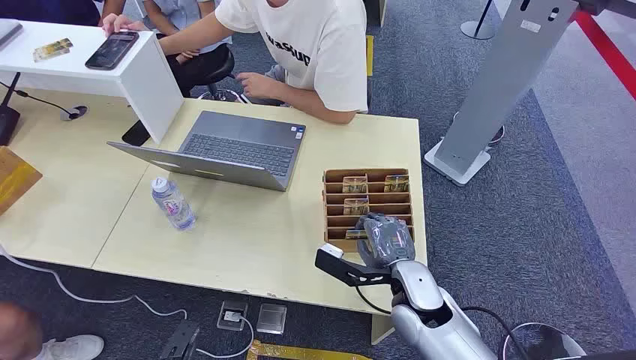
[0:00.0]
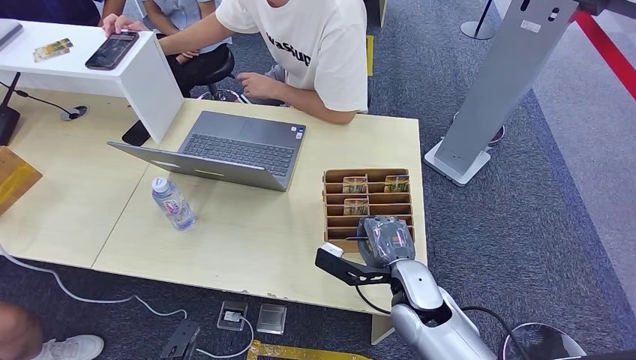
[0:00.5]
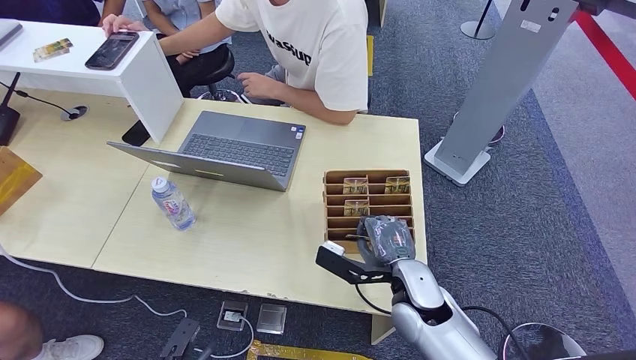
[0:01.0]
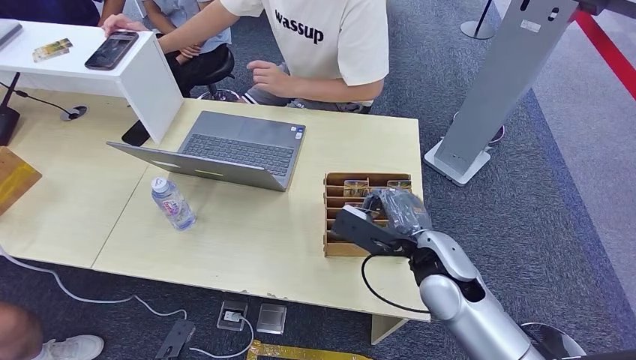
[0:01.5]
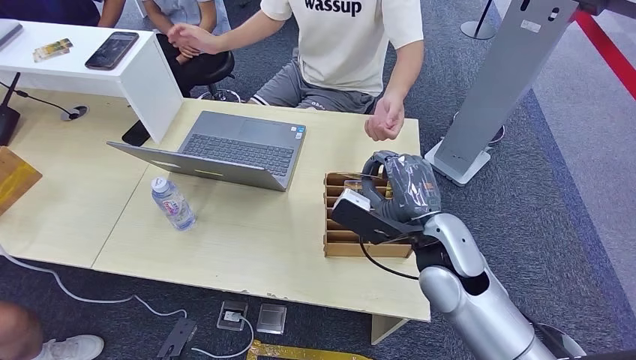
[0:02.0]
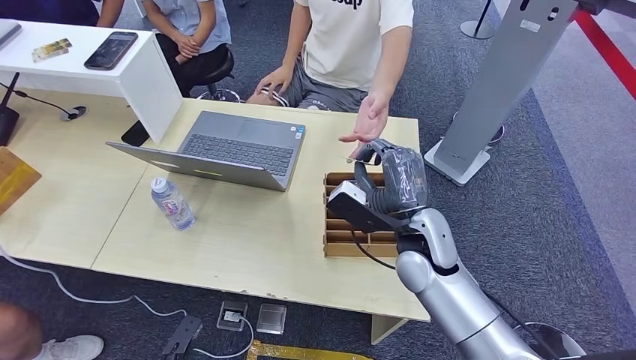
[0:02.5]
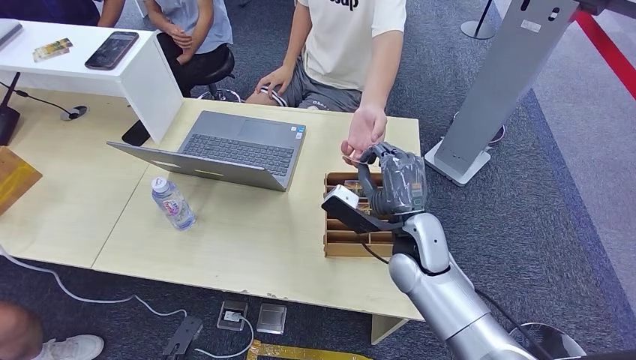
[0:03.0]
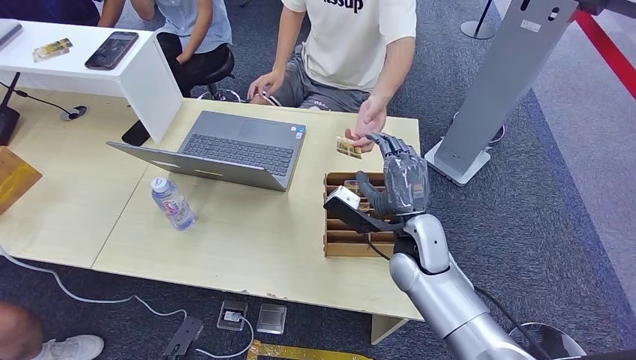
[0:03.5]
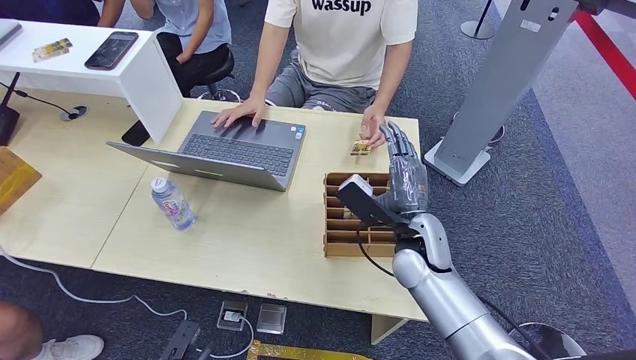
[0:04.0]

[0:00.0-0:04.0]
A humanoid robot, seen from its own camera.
Step, 0:00.0 to 0:01.5: Pick up the room card from the card holder.
Step, 0:02.0 to 0:04.0: Hand the room card to the target.
0:02.0 to 0:04.0: The right hand travels downward by approximately 5 cm.

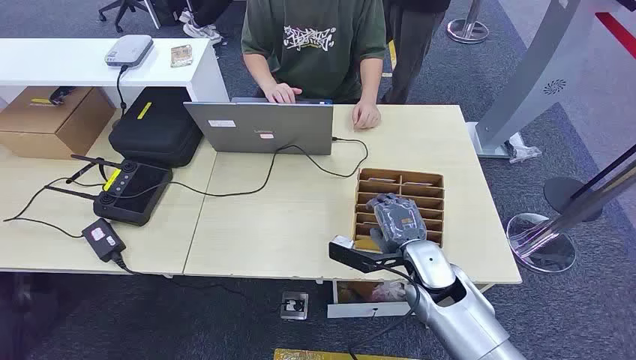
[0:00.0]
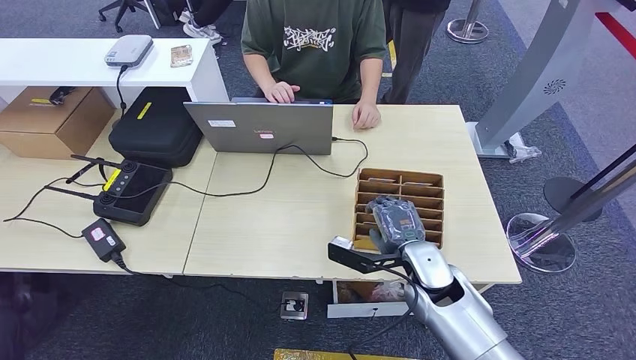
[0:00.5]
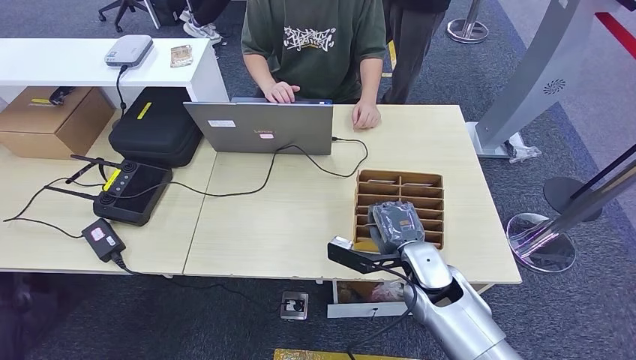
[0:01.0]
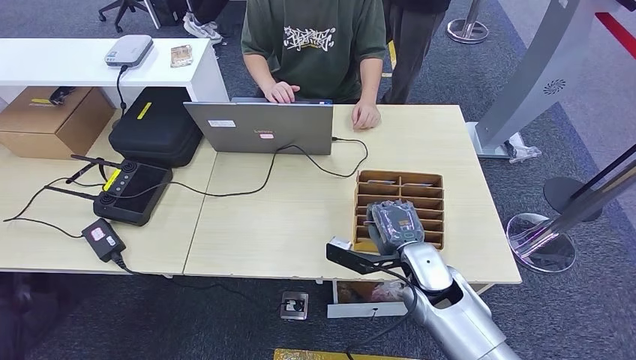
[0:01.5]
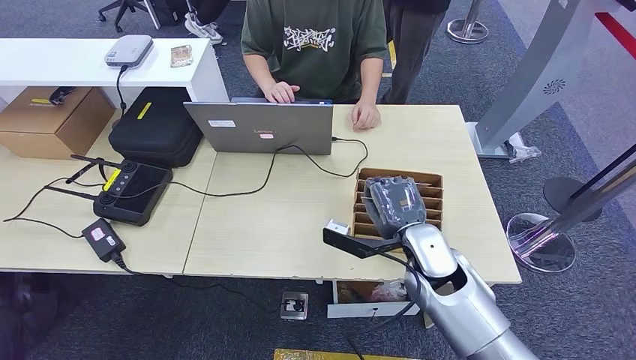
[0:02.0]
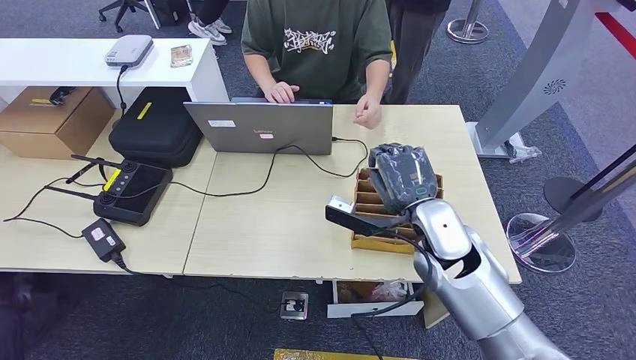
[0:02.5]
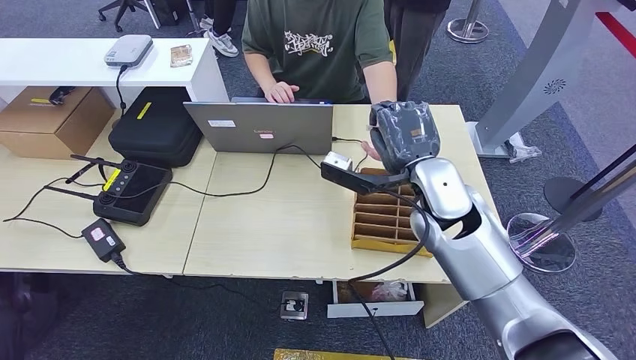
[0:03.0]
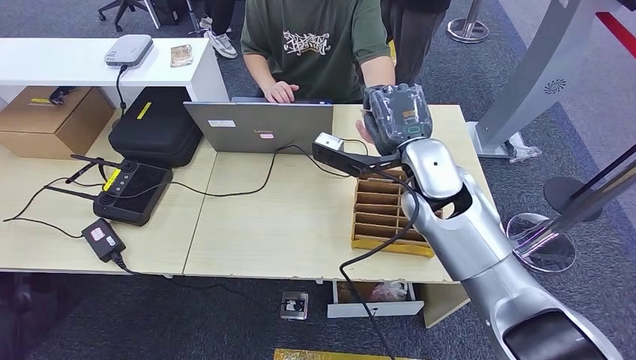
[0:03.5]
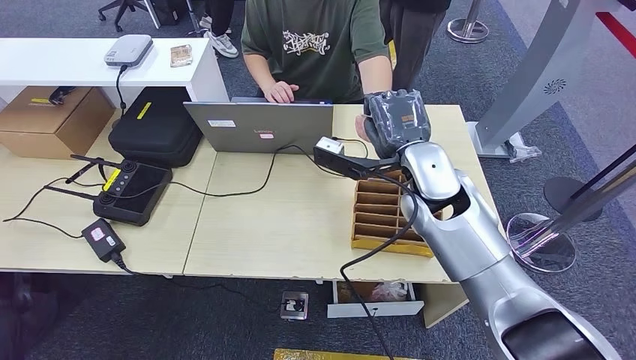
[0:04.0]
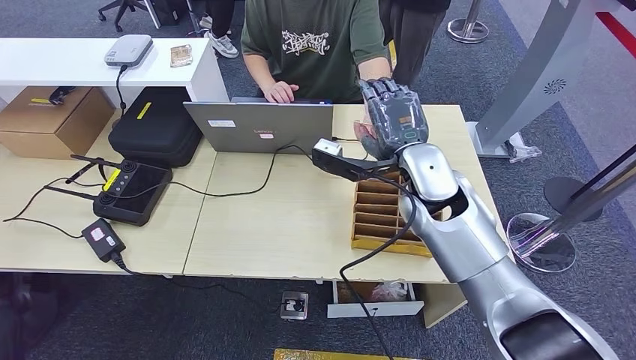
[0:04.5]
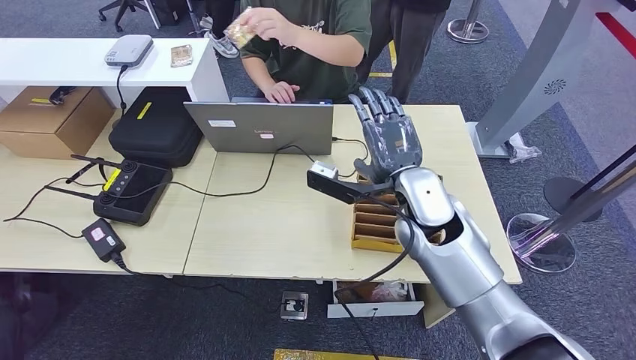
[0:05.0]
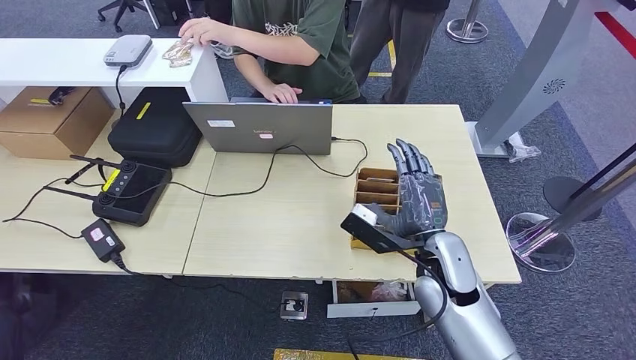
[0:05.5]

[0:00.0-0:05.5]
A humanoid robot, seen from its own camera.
Step, 0:00.0 to 0:02.0: Pick up the room card from the card holder.
Step, 0:02.5 to 0:05.5: Hand the room card to the target.
0:02.0 to 0:03.5: The right hand moves upward and forward, some 15 cm.
0:03.5 to 0:05.5: The right hand moves downward and backward, some 15 cm.
